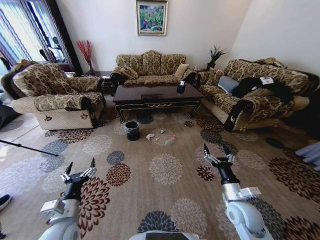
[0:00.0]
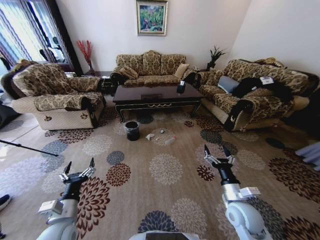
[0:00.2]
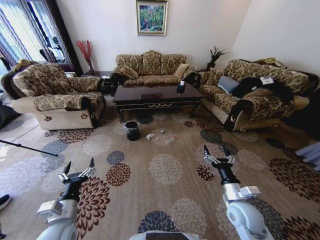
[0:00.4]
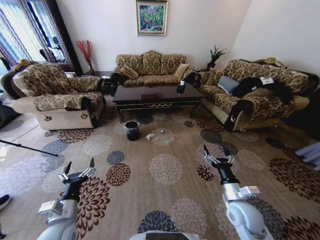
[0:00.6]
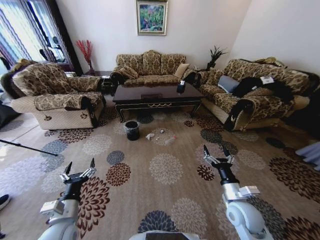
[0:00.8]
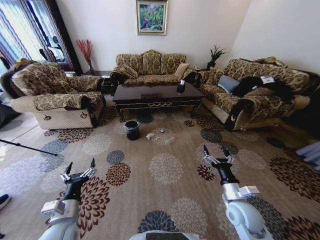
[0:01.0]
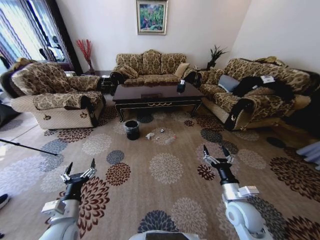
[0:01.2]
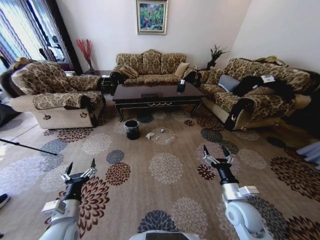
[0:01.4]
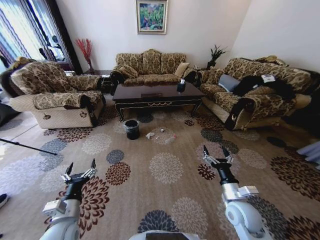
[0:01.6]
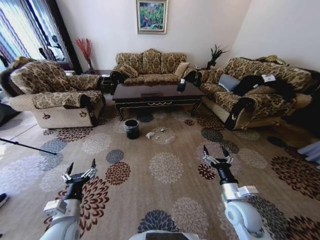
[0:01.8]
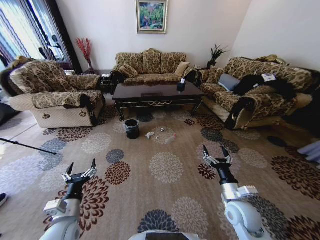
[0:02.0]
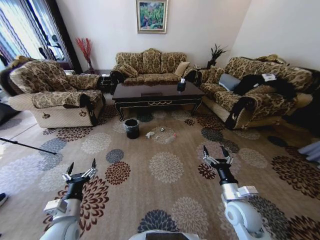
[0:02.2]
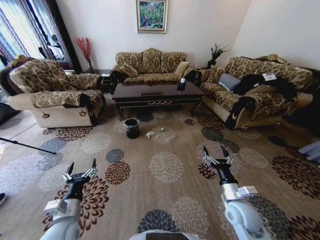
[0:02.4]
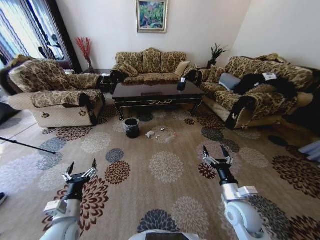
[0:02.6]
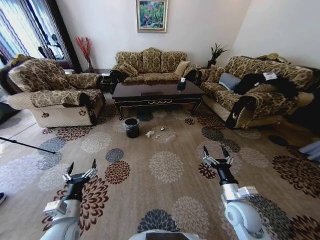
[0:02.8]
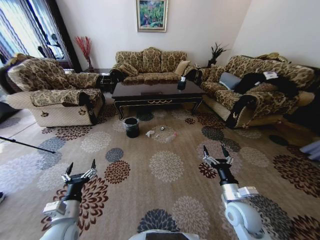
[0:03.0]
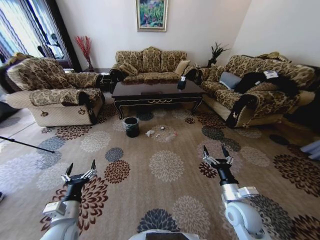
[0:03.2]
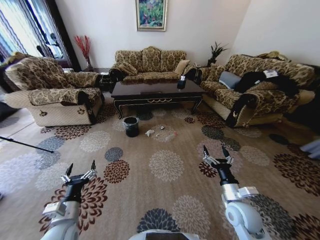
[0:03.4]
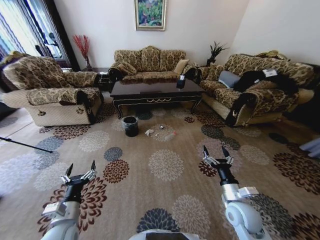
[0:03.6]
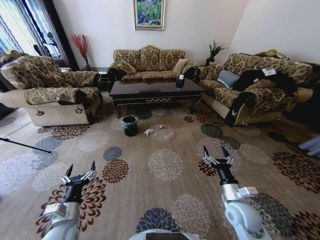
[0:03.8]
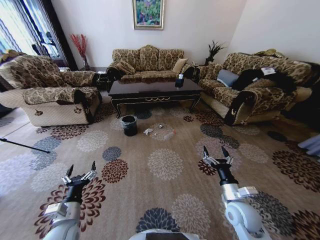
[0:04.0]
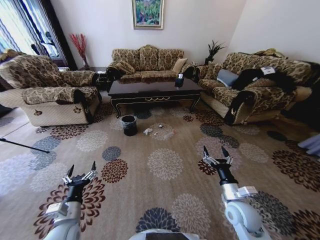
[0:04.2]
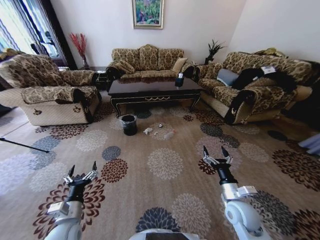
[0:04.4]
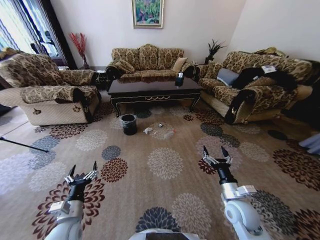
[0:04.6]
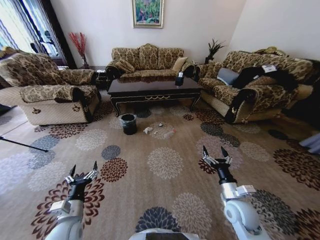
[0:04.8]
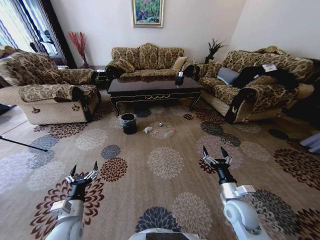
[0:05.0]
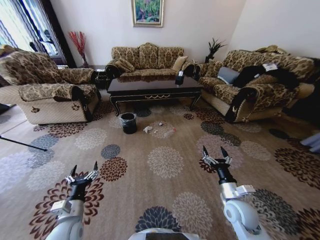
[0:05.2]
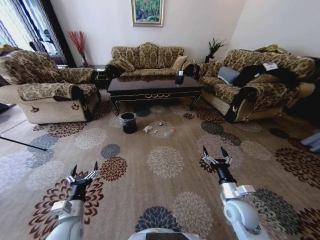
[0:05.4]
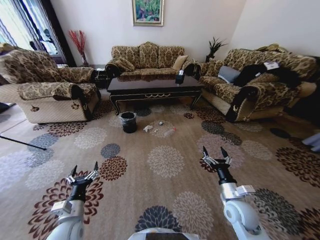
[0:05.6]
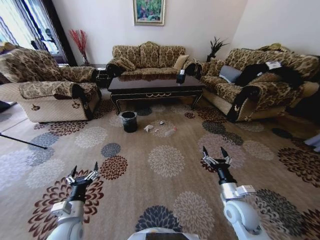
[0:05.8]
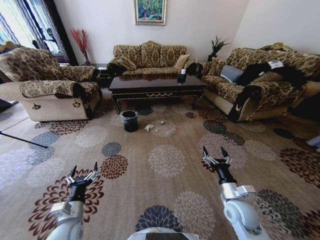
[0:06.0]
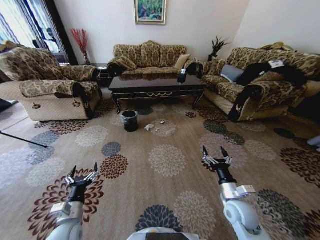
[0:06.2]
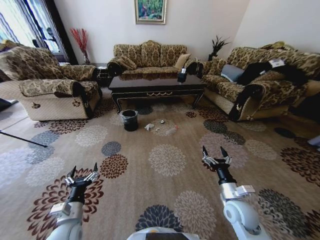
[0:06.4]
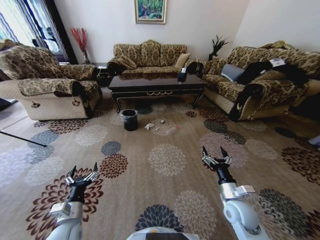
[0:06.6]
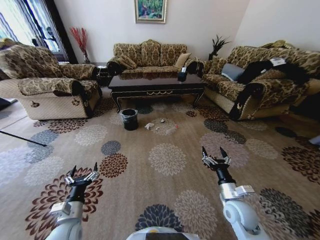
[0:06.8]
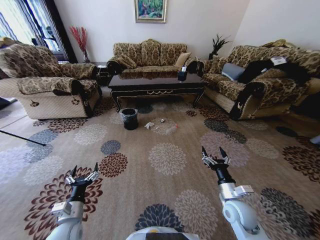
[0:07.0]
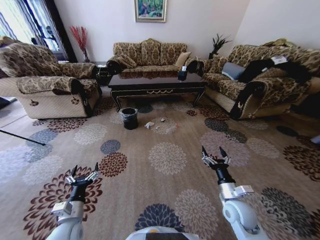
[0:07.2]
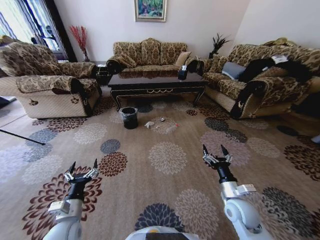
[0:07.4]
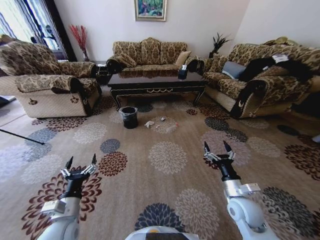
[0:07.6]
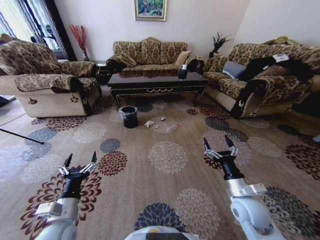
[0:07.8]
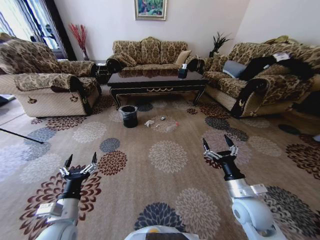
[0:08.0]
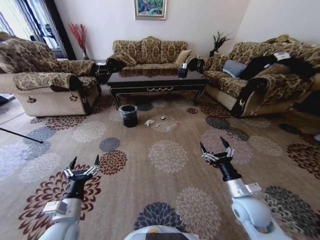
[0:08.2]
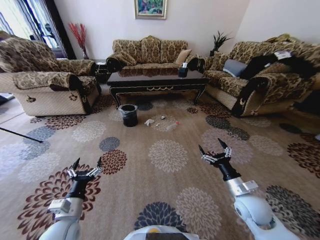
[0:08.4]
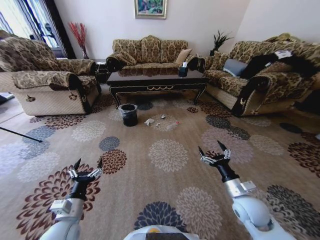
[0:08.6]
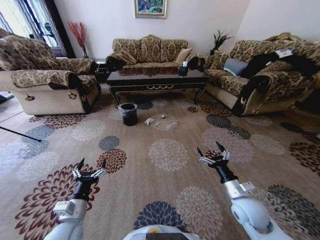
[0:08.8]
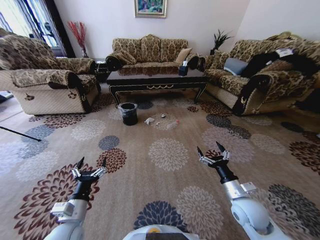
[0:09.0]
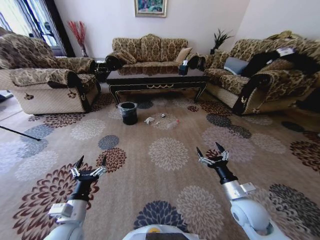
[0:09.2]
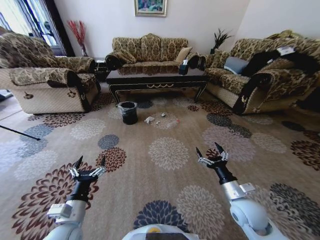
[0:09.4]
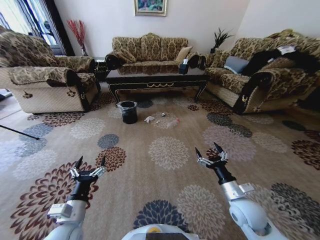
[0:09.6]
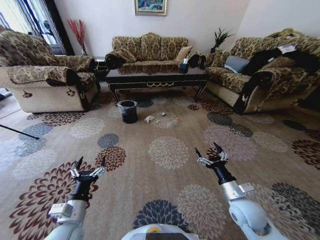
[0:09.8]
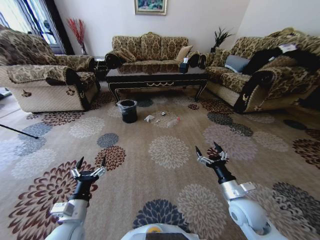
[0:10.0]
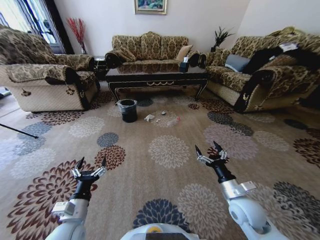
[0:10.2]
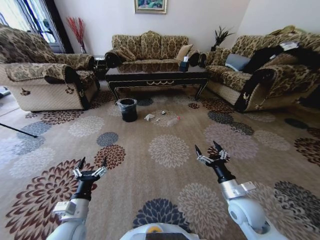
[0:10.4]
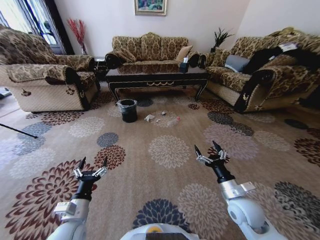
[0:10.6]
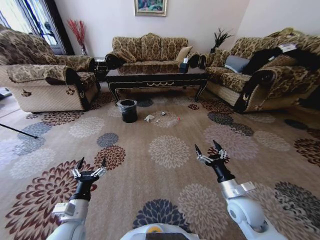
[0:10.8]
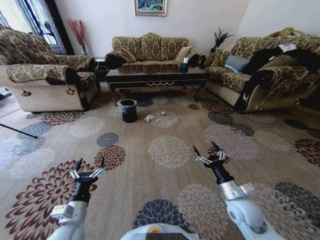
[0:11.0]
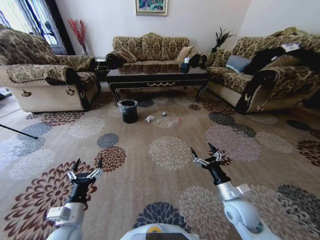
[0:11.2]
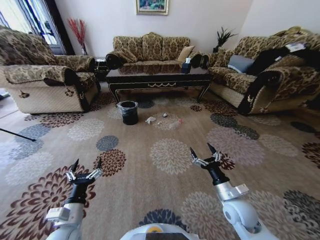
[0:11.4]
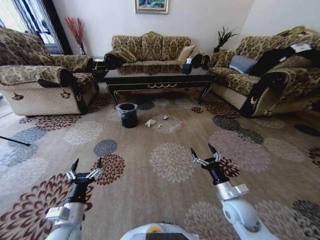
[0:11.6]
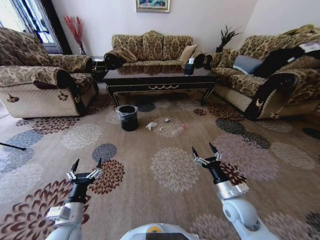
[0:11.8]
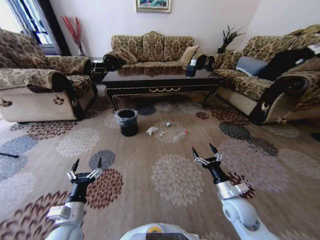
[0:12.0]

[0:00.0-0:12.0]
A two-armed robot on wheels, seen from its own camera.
Task of the whole recording: Move to the front of the table and pick up the trash from the floor, then place it into the trash bin.
0:01.6 to 0:03.0: Neither gripper changes place.

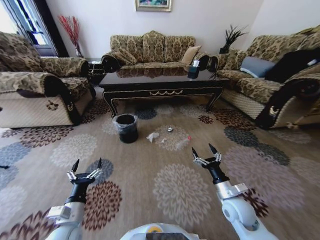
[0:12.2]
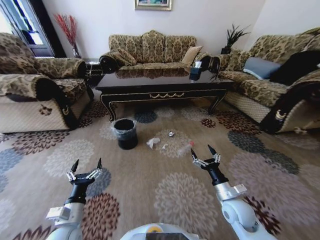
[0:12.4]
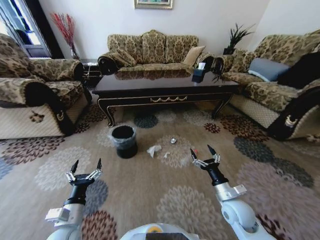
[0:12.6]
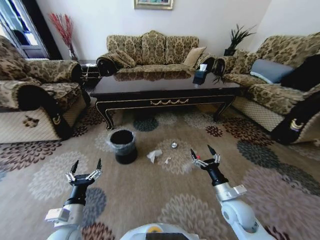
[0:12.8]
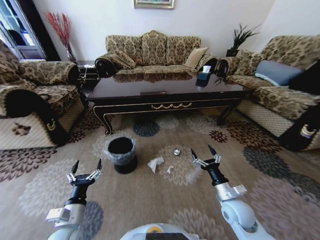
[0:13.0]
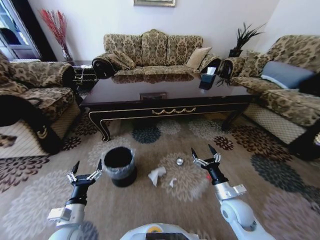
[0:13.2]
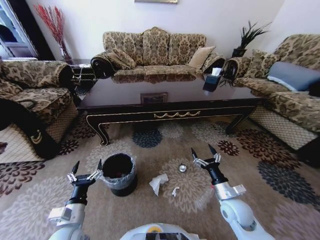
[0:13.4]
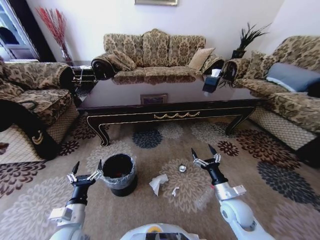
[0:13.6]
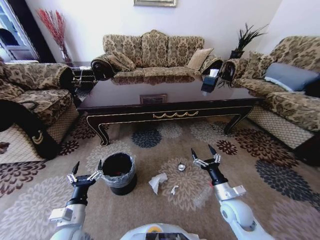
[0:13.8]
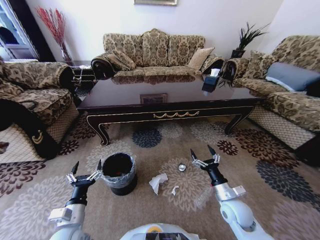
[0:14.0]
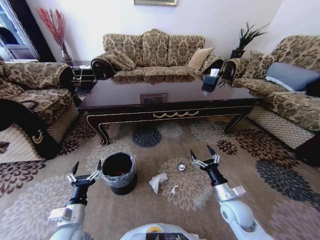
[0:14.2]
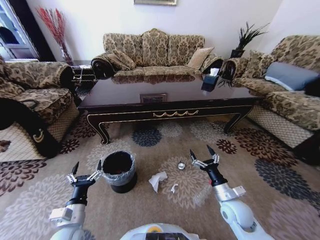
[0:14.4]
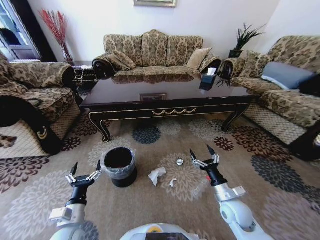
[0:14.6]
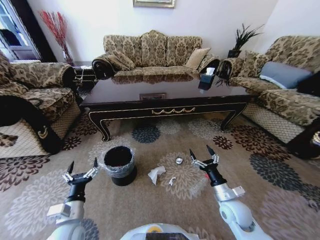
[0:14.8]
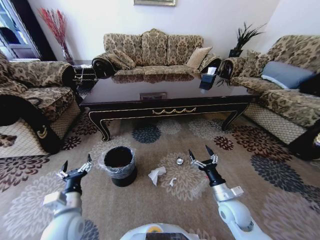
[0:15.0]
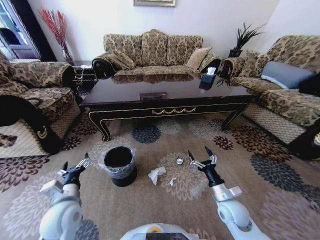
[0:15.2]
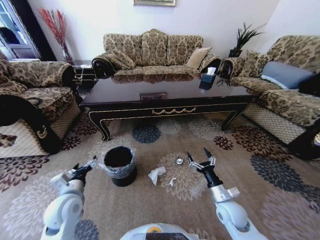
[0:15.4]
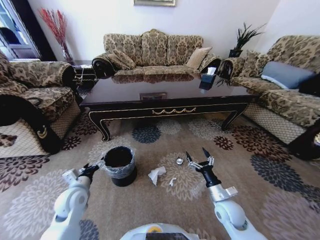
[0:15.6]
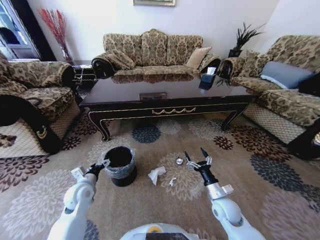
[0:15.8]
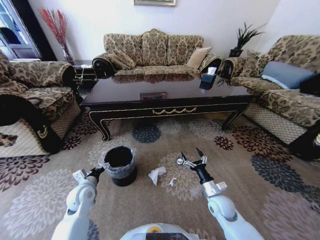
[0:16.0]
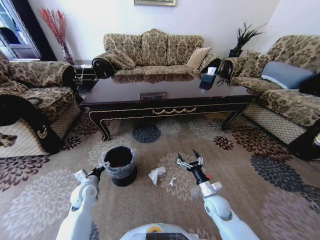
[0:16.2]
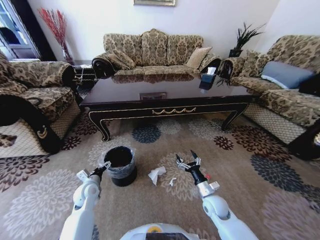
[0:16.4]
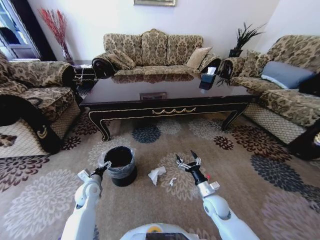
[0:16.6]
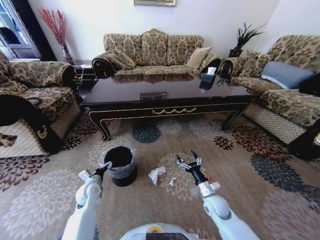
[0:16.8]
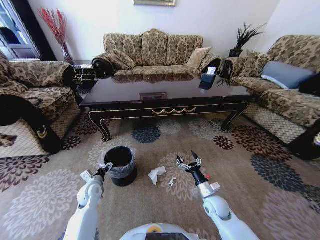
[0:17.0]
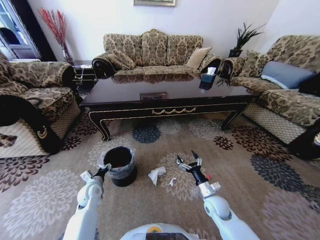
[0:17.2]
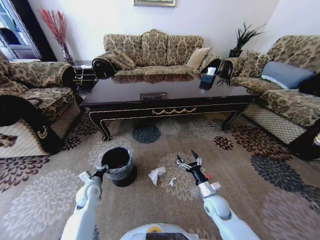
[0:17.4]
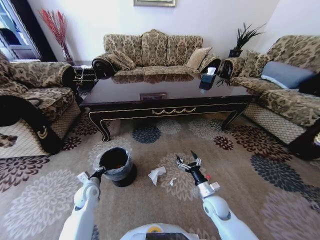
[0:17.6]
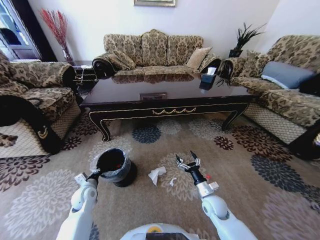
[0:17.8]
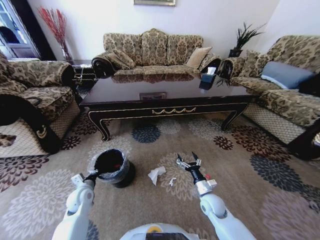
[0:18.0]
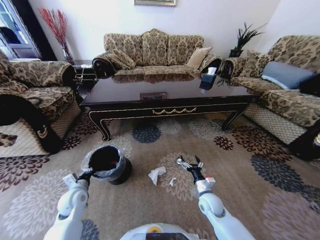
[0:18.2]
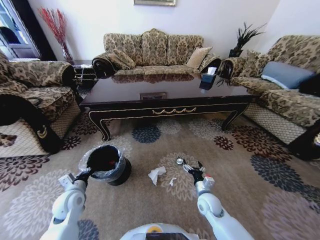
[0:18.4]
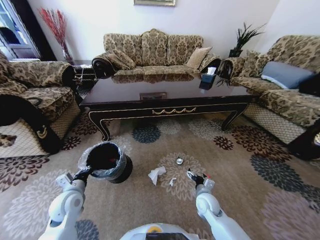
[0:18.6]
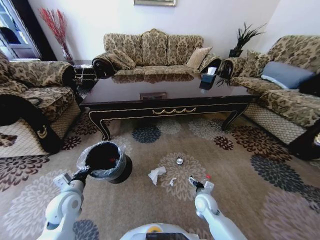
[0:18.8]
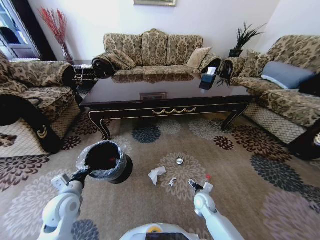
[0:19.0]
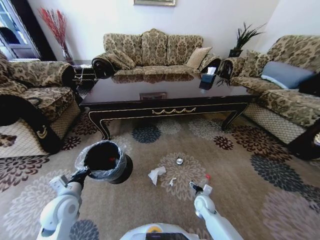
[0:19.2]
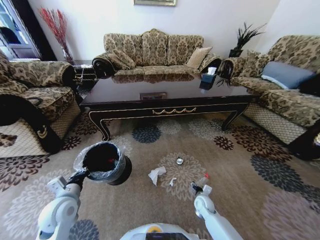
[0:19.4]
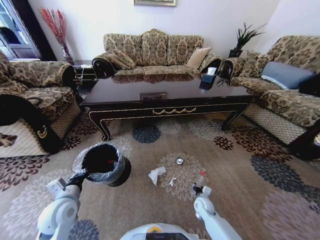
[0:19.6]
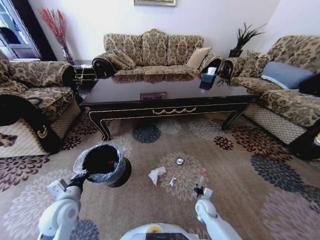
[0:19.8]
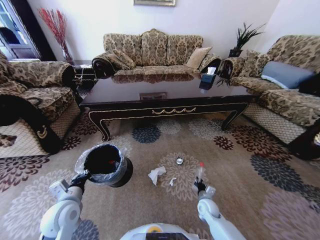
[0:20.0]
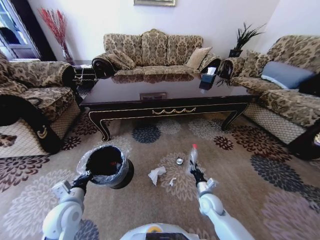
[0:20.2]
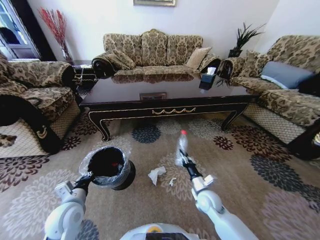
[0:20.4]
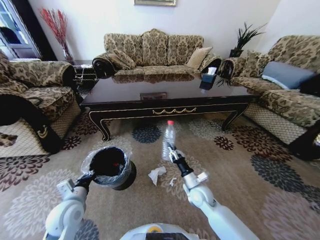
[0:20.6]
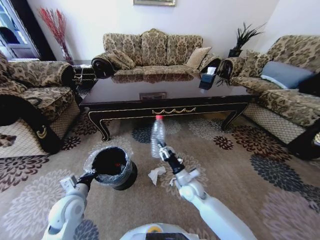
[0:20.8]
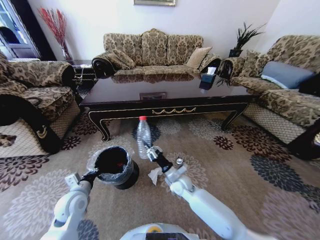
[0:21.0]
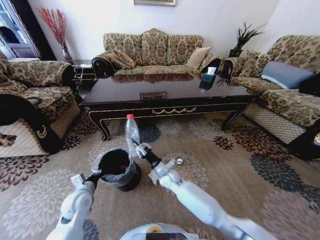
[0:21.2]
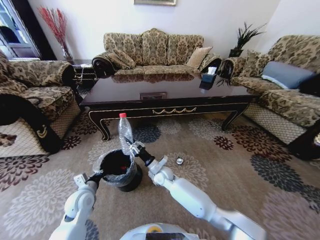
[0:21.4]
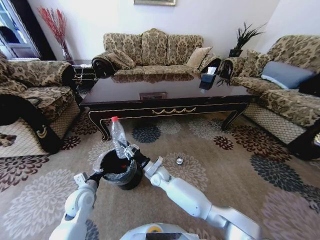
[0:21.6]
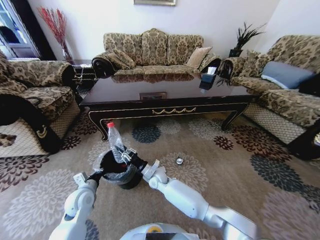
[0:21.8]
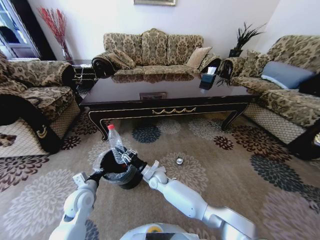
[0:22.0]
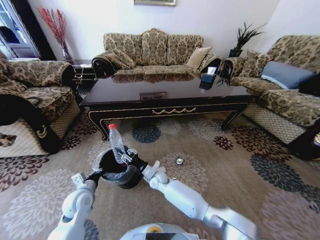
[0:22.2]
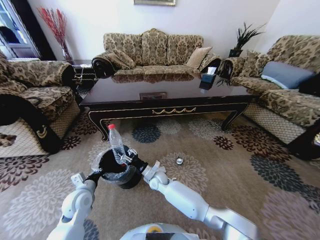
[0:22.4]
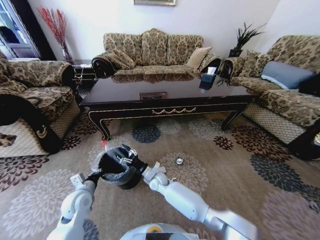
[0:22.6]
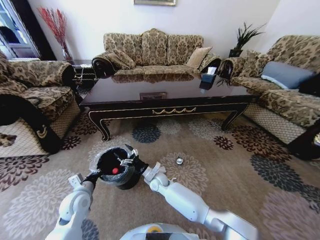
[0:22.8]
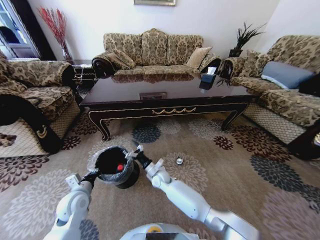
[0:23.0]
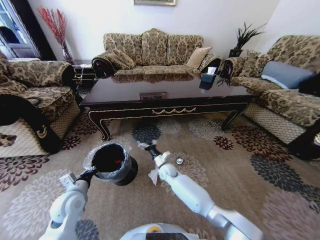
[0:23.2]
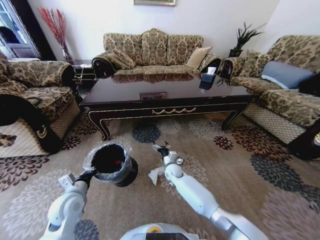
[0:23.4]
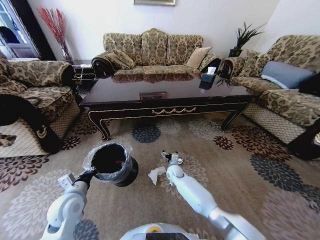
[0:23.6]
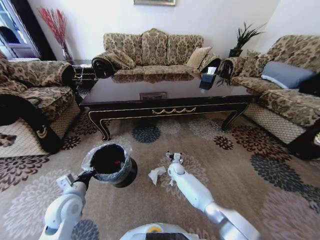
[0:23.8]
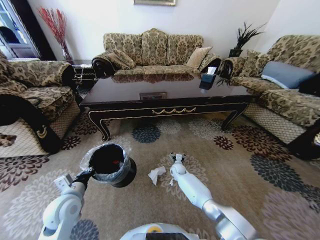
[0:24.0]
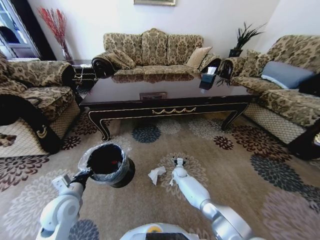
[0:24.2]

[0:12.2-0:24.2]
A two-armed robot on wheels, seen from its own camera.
Task of the whole recording: Move to the front of the table and pick up the trash from the floor, then place it into the trash bin.
0:13.8 to 0:15.2: The left gripper travels forward and upward by roughly 10 cm.
0:15.2 to 0:16.6: The right gripper is displaced downward by some 5 cm. The left gripper travels downward and forward by approximately 15 cm.
0:16.6 to 0:18.2: The left gripper shifts by approximately 5 cm, and closes.
0:18.2 to 0:19.8: The left gripper heads upward and backward, covering roughly 10 cm, while the right gripper shifts approximately 10 cm downward, and closes.
0:19.8 to 0:21.2: The right gripper heads to the left, upward and forward, covering about 25 cm, while the left gripper ends up approximately 5 cm from where it was.
0:21.2 to 0:22.6: The right gripper heads to the left, covering roughly 5 cm, and opens up.
0:22.6 to 0:24.2: The left gripper moves upward, about 5 cm; the right gripper heads to the right, downward and forward, covering approximately 20 cm.
